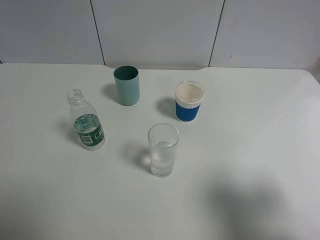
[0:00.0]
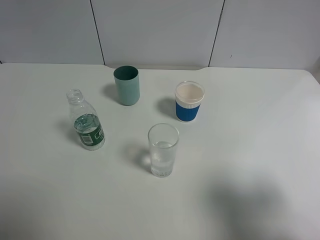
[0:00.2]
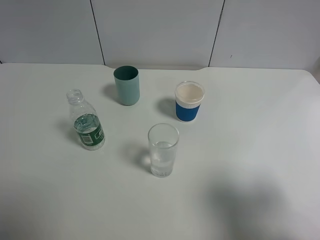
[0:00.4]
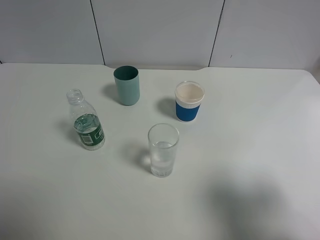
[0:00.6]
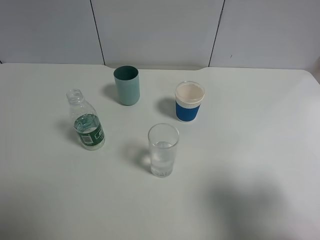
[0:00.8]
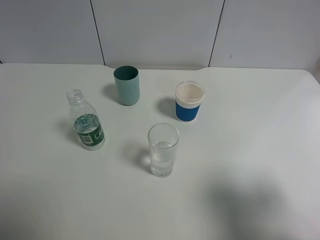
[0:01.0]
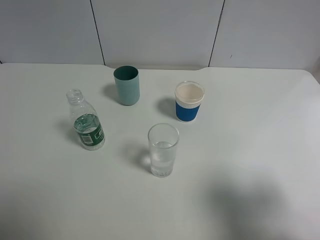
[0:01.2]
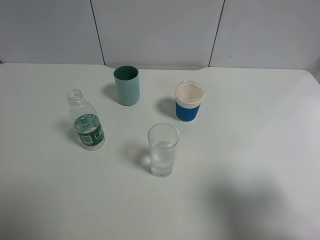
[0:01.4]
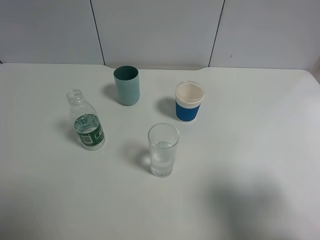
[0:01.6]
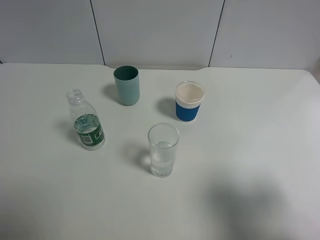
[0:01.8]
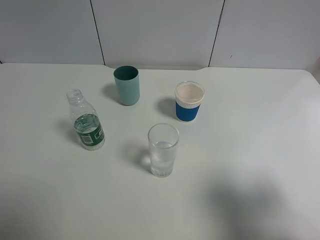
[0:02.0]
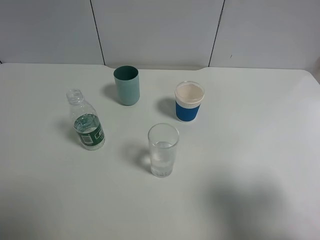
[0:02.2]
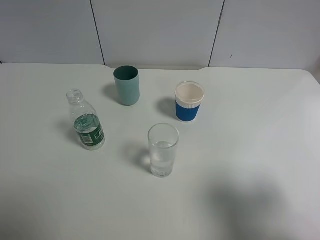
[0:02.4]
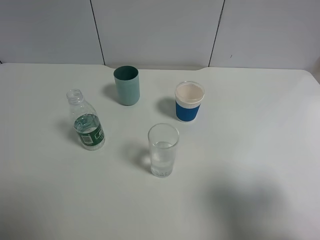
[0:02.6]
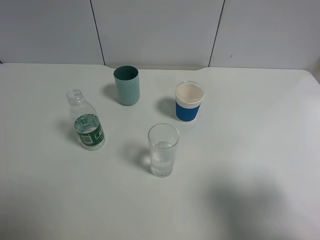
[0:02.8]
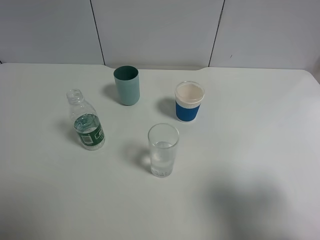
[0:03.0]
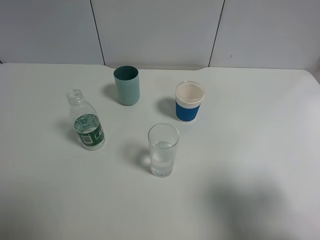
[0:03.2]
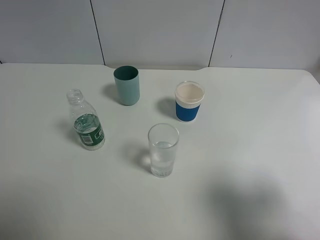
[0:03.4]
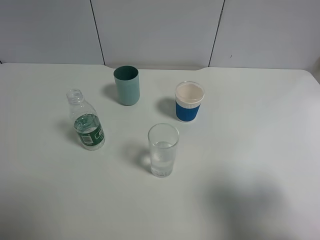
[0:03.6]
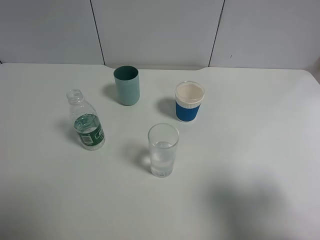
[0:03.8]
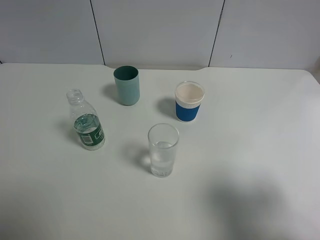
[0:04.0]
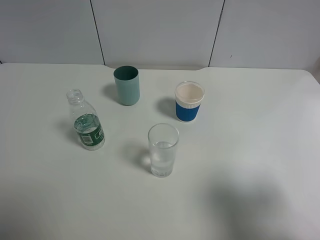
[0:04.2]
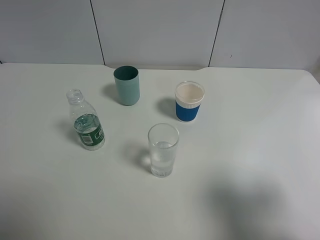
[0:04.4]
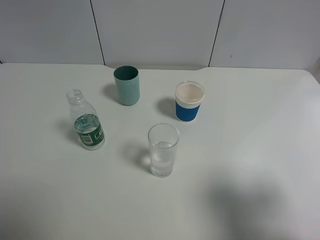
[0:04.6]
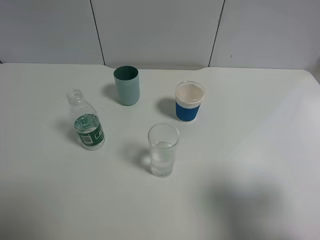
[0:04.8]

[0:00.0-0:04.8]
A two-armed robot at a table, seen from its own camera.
Task of the whole recording: use a gripper to hold the bottle of the drink and pour it into a random cup.
0:03.2 to 0:04.8: Neither gripper changes place.

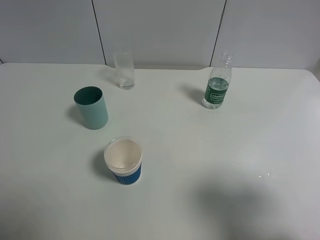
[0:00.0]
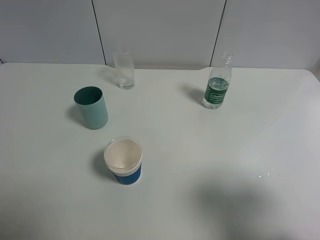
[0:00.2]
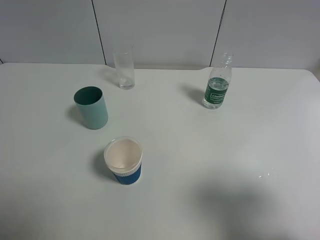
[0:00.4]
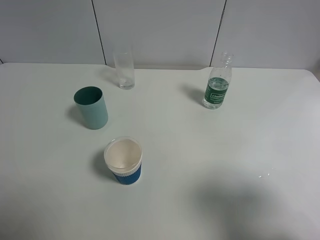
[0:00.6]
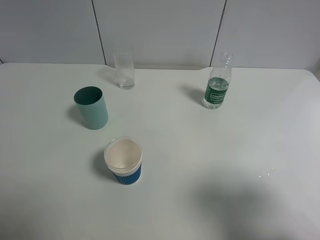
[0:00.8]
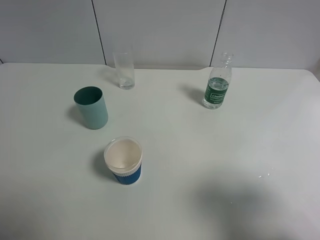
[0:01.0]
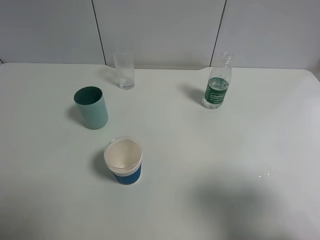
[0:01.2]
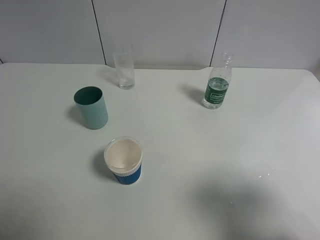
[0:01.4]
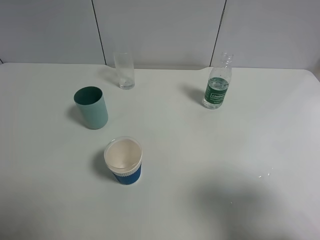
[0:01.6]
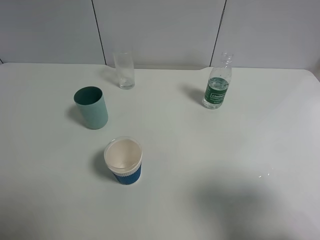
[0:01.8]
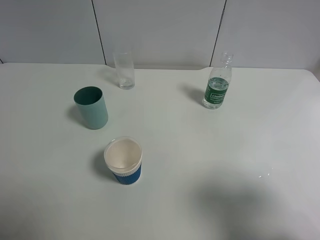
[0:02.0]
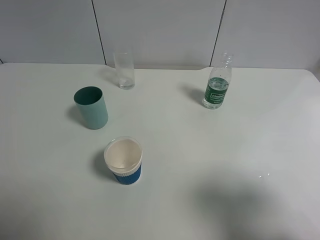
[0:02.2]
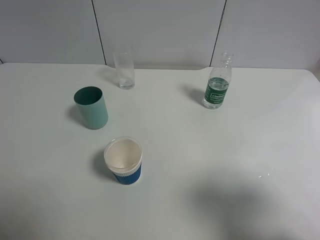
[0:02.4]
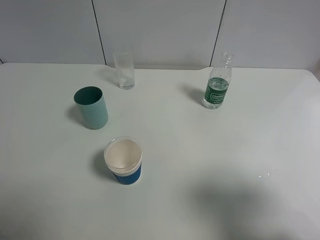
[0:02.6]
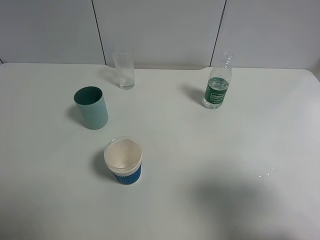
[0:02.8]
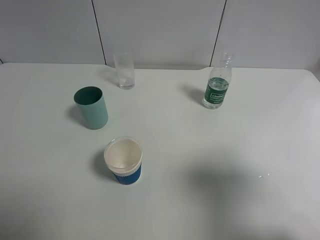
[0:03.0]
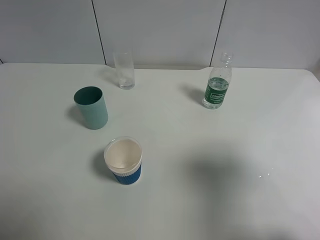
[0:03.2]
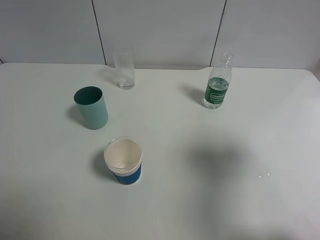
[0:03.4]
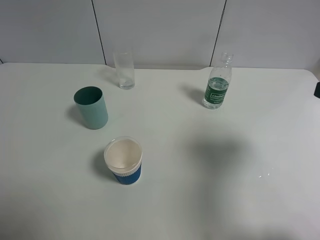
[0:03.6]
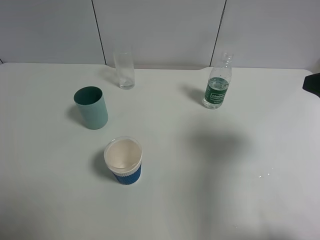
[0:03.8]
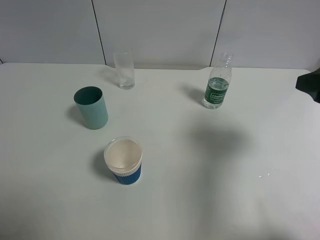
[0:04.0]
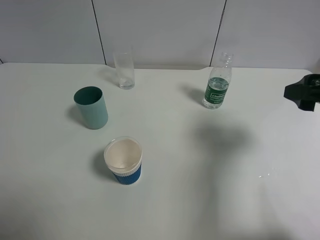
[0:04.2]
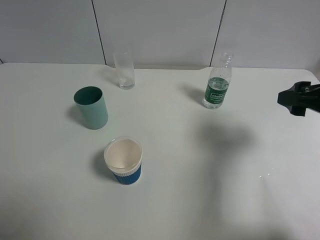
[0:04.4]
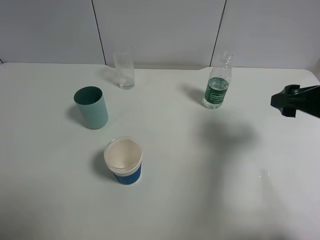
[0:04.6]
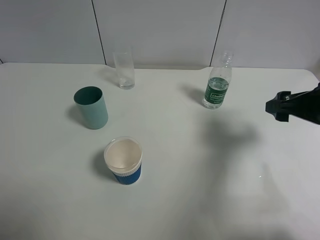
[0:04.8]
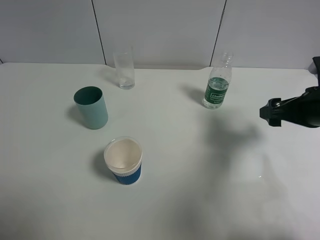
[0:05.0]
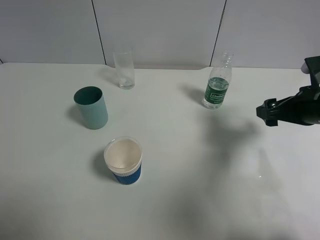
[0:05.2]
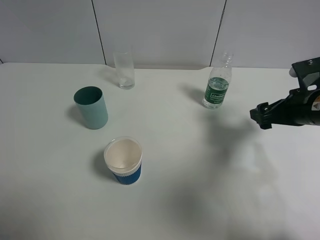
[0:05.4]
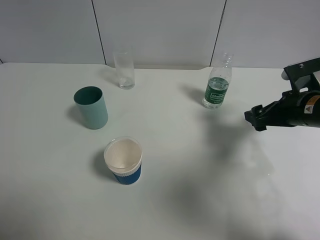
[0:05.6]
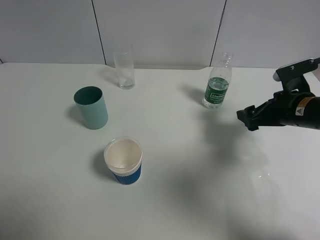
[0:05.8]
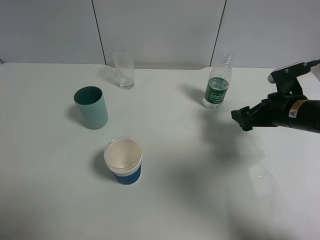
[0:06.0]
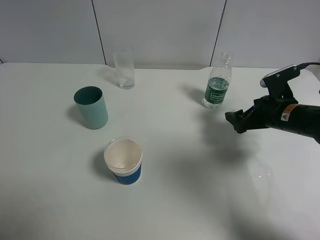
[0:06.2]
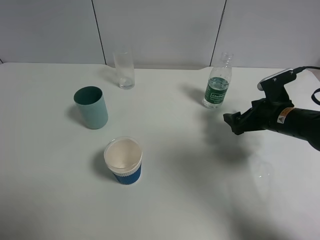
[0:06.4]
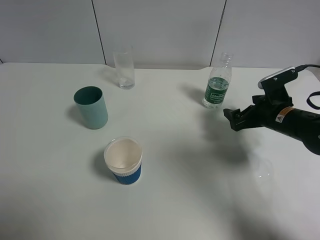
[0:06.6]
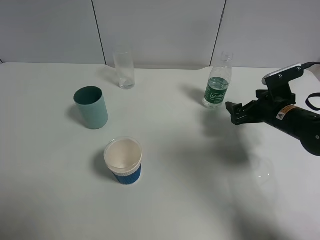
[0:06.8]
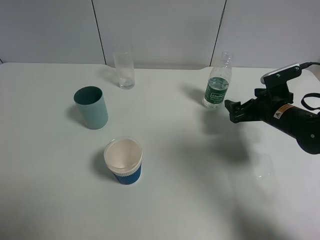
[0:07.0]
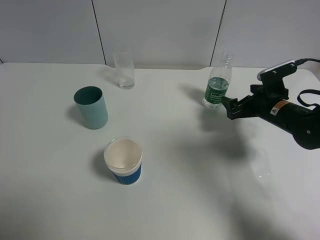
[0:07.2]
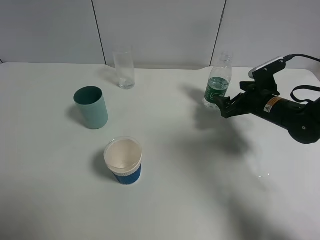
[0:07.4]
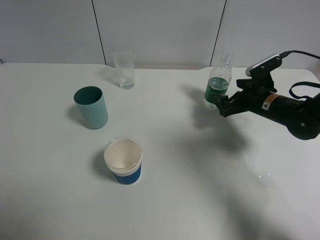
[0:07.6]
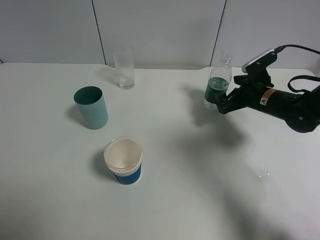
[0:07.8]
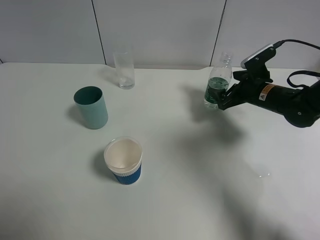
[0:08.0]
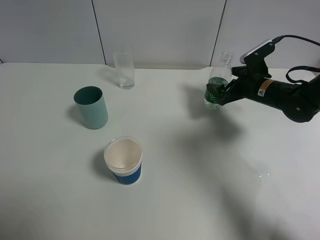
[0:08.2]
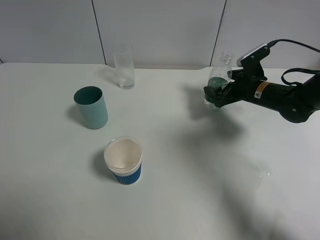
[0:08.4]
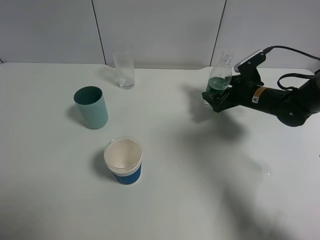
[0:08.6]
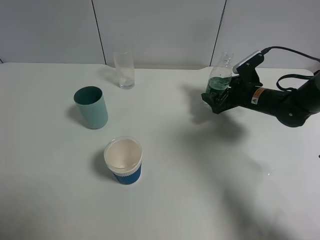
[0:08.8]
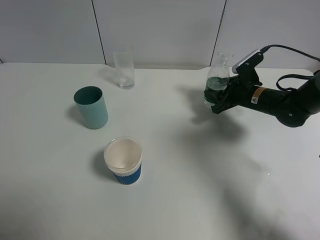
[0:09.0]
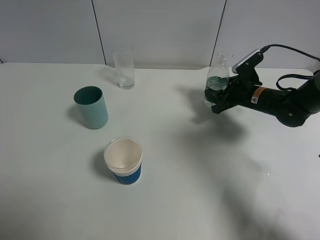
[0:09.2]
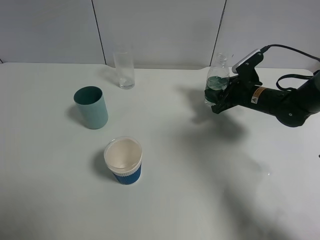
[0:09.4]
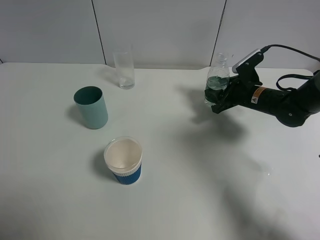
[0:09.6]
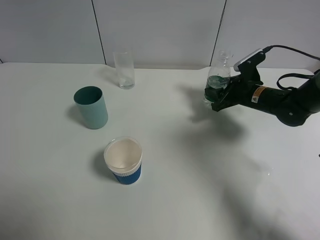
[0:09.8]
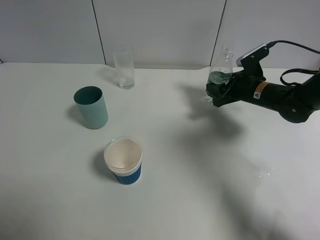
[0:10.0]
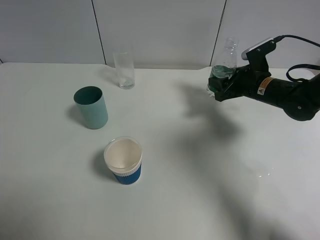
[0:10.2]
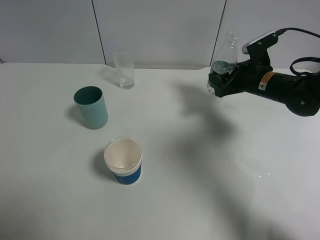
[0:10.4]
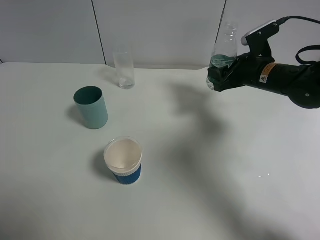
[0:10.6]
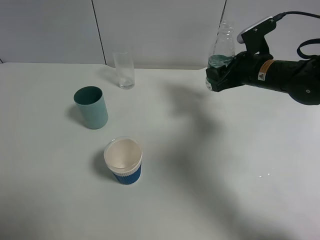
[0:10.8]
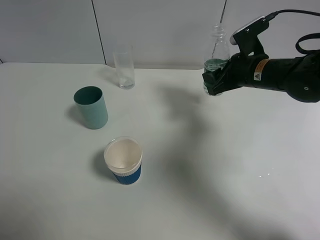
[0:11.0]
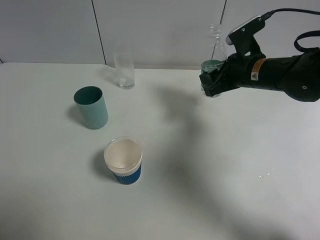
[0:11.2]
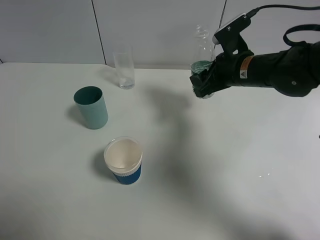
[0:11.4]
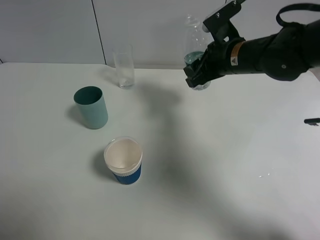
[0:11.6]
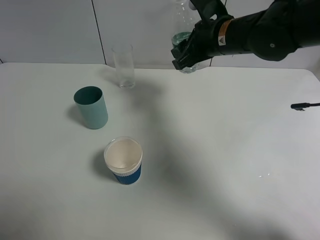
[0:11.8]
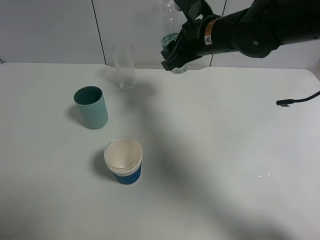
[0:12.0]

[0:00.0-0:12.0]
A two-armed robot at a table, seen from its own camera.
Task of the whole recording: use a gripper to hold the bottle of the drink and pour it into a random cup.
Step, 0:00.0 to 0:09.4: Grasp the mineral water bottle with the right gripper.
0:00.0 to 0:01.6: The two grippers keep their place.
0:01.6 to 0:03.0: The right gripper changes place by roughly 5 cm.
0:03.0 to 0:04.4: The right gripper is displaced forward and downward by roughly 15 cm.
0:04.4 to 0:06.0: The right gripper shifts some 15 cm downward and forward.
0:06.0 to 0:07.6: The right gripper is displaced forward by about 5 cm.
0:07.6 to 0:09.0: The right gripper closes.
0:09.0 to 0:10.4: The right gripper goes some 5 cm upward.
0:10.4 to 0:12.0: The right gripper is displaced to the left and upward by some 15 cm.

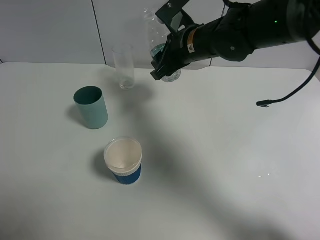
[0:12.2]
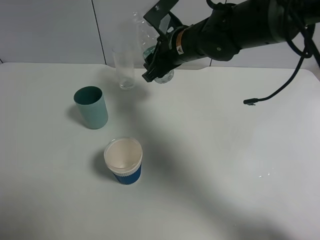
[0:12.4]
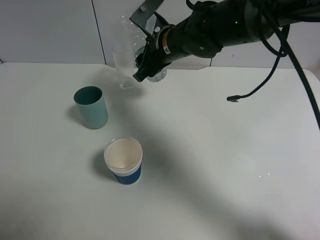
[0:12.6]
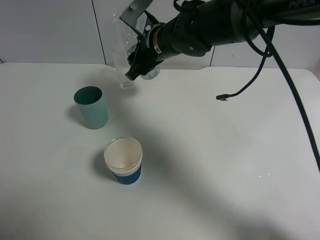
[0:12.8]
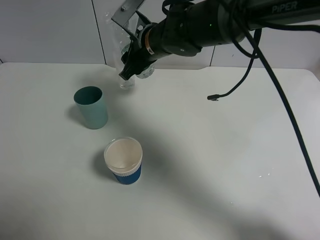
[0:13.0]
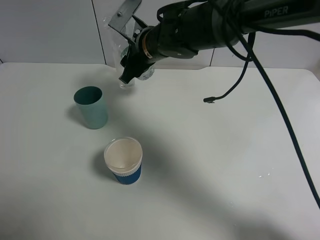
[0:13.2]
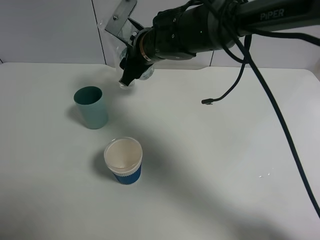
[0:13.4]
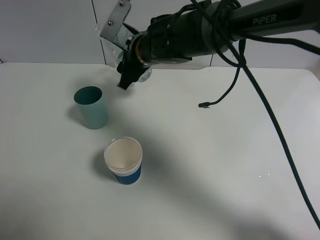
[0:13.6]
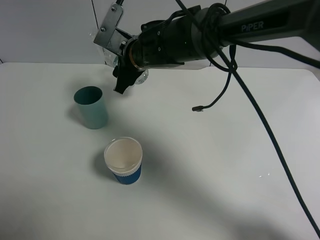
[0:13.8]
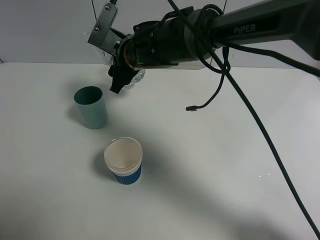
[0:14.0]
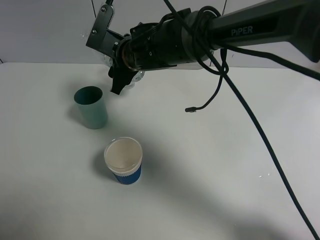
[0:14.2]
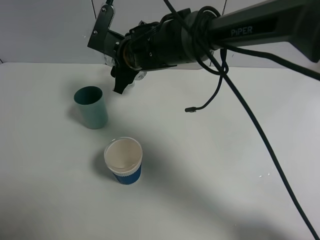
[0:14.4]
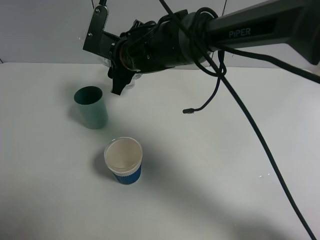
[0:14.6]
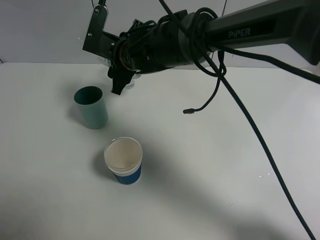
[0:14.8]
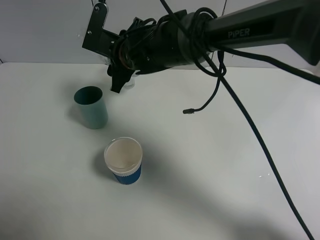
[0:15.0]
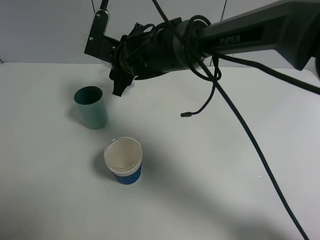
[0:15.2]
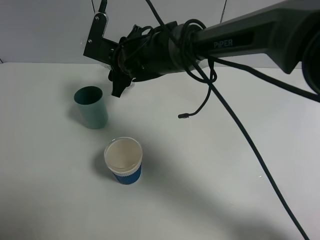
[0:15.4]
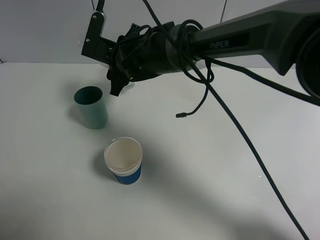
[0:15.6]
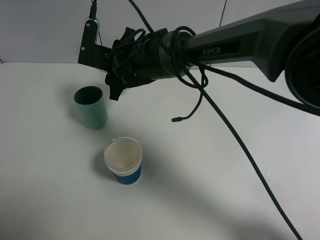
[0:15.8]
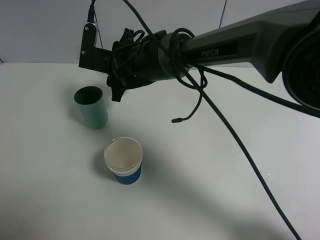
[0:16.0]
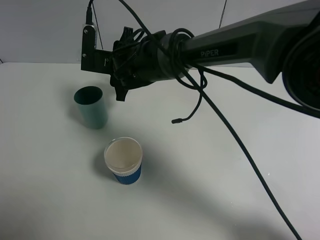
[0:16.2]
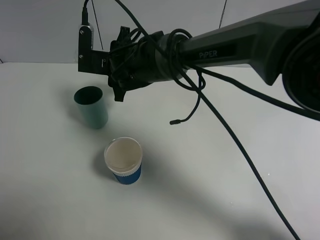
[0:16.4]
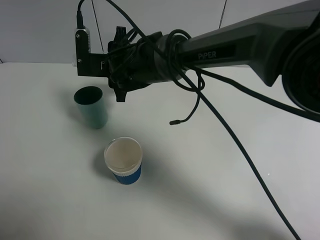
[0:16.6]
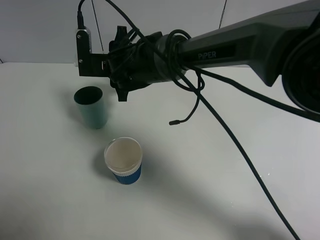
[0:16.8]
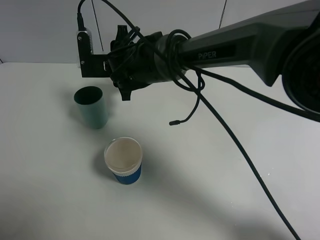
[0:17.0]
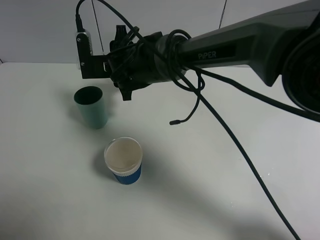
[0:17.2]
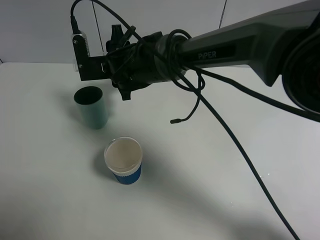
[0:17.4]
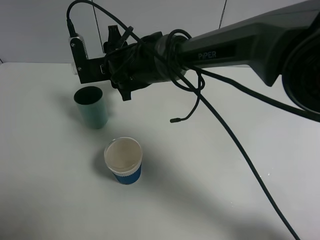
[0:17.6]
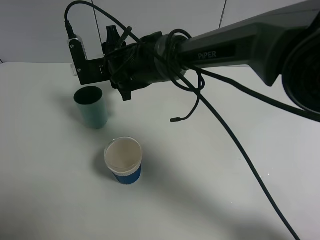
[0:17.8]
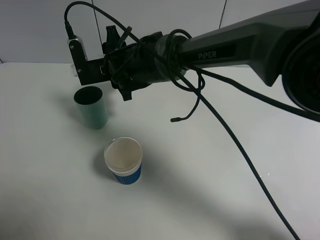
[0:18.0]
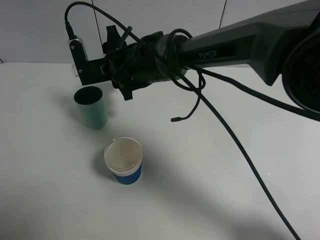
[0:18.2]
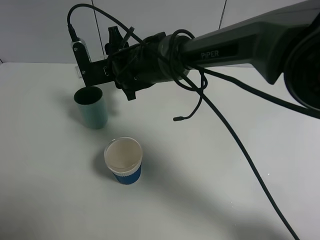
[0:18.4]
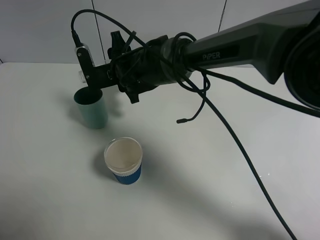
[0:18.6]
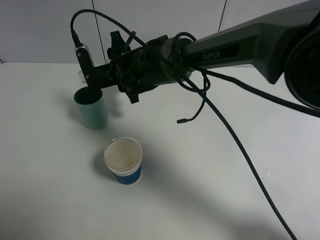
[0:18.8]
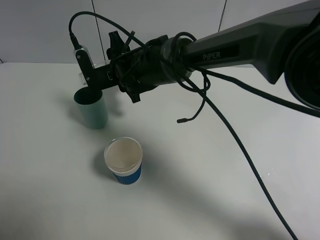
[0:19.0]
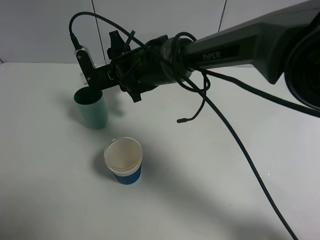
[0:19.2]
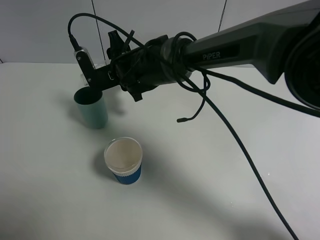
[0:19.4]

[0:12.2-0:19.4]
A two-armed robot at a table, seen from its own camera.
Task of the whole recording: use a gripper to hold the bottle of the drink and pour it into a random cup.
0:12.2 to 0:13.6: The right gripper moves to the left, approximately 10 cm.
0:13.6 to 0:15.0: There are only small adjustments of the grippers.
0:16.6 to 0:18.0: The grippers make only small movements.
0:18.0 to 0:19.4: The grippers make only small movements.
